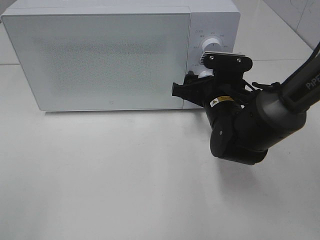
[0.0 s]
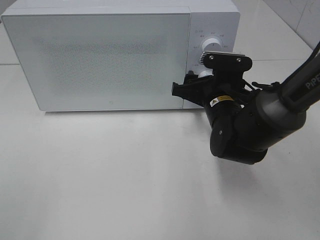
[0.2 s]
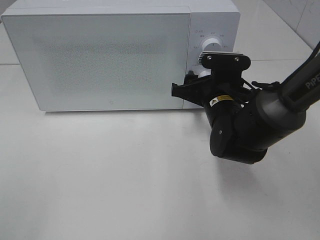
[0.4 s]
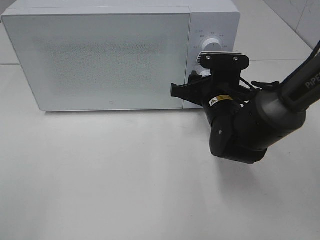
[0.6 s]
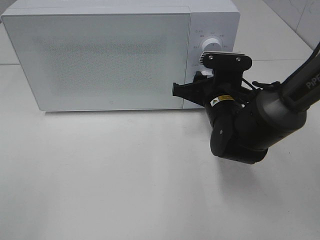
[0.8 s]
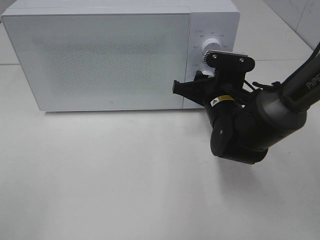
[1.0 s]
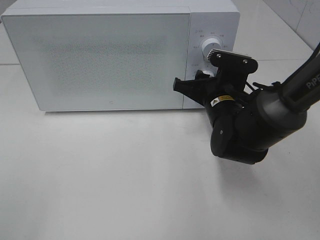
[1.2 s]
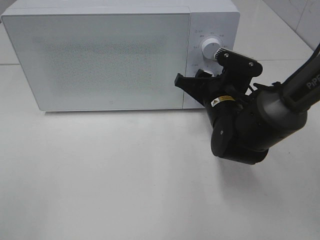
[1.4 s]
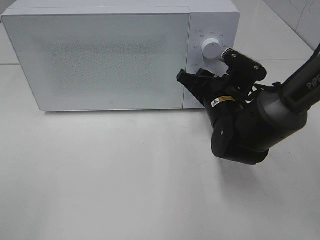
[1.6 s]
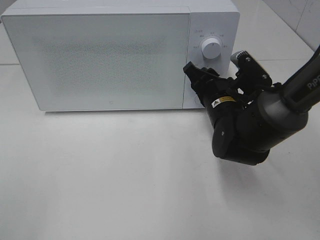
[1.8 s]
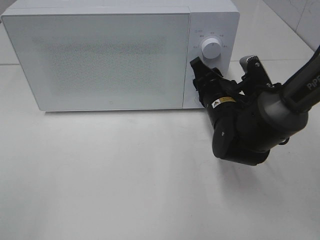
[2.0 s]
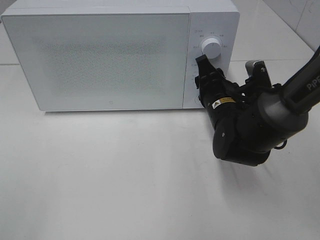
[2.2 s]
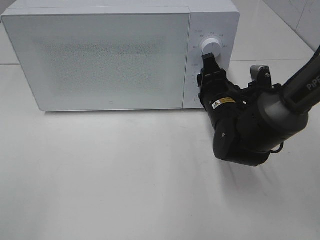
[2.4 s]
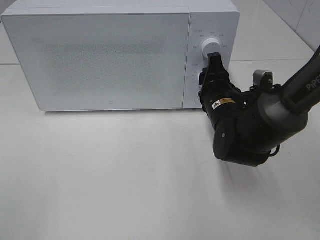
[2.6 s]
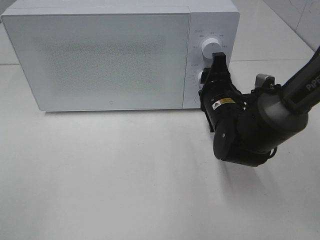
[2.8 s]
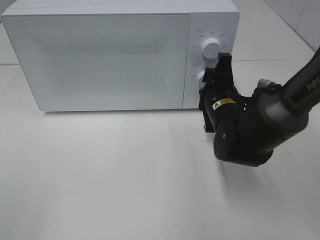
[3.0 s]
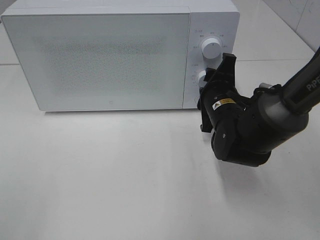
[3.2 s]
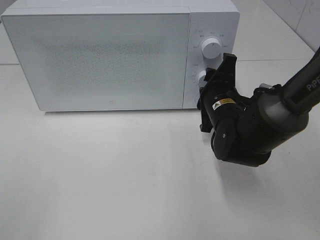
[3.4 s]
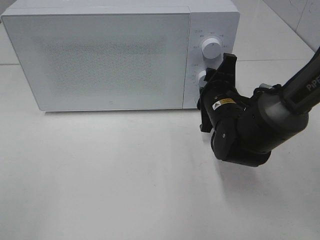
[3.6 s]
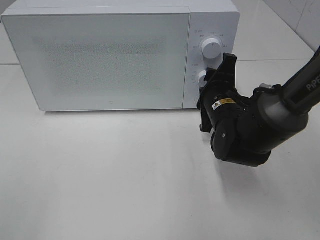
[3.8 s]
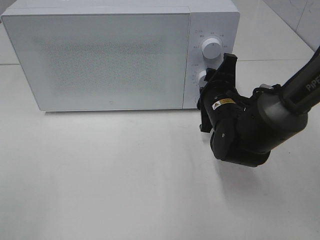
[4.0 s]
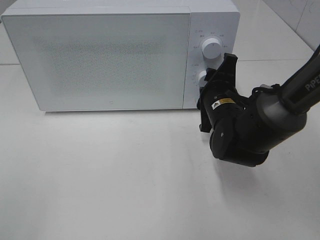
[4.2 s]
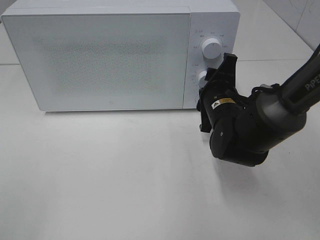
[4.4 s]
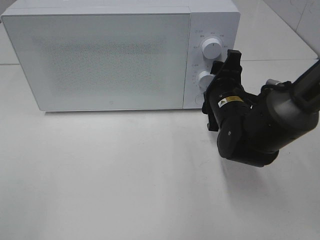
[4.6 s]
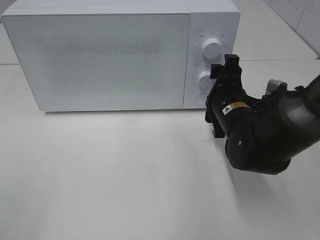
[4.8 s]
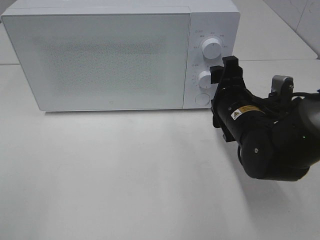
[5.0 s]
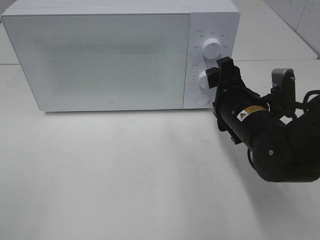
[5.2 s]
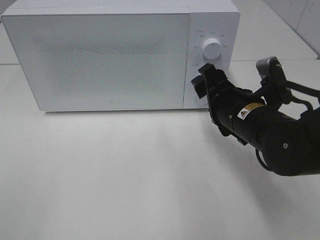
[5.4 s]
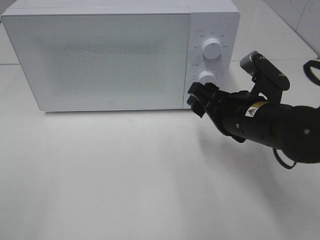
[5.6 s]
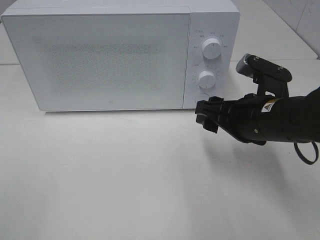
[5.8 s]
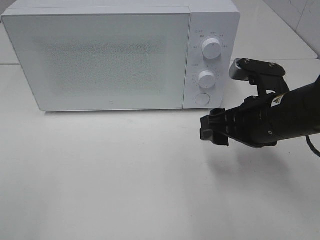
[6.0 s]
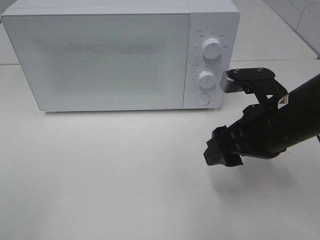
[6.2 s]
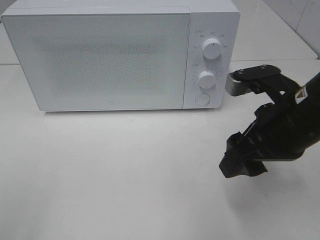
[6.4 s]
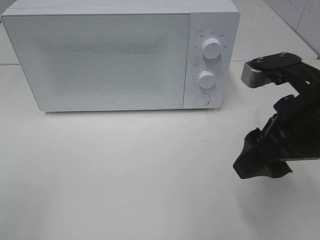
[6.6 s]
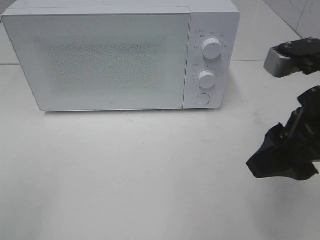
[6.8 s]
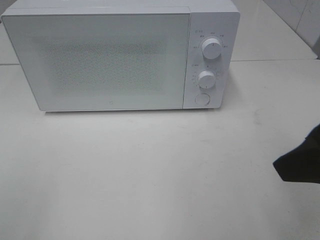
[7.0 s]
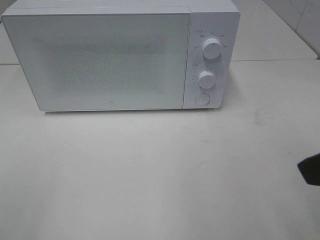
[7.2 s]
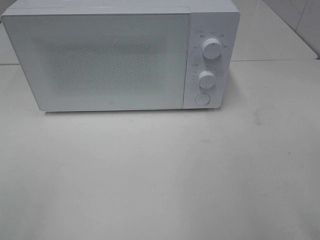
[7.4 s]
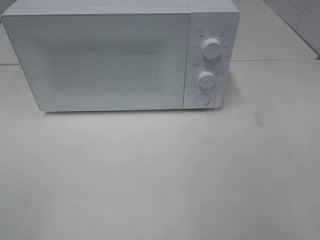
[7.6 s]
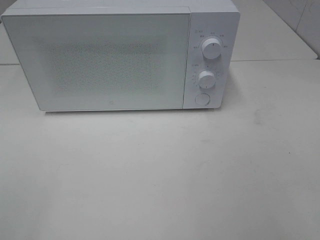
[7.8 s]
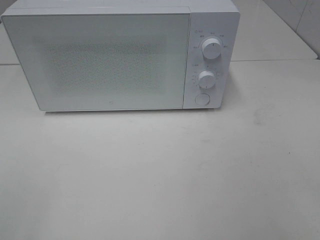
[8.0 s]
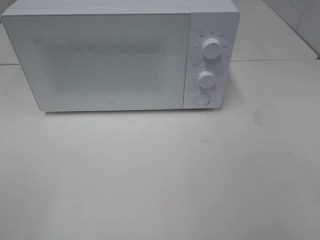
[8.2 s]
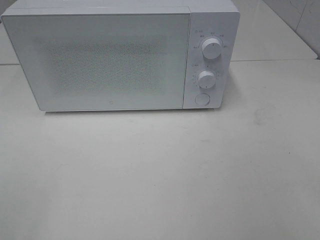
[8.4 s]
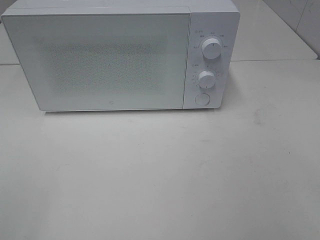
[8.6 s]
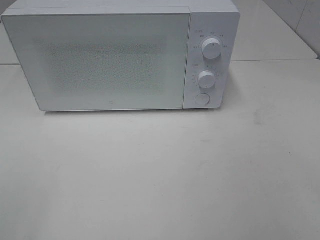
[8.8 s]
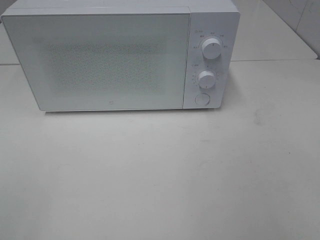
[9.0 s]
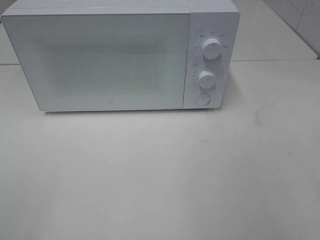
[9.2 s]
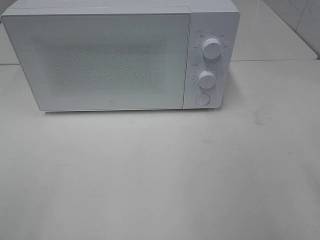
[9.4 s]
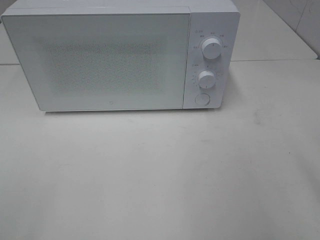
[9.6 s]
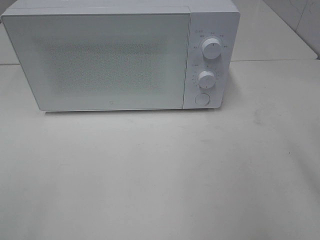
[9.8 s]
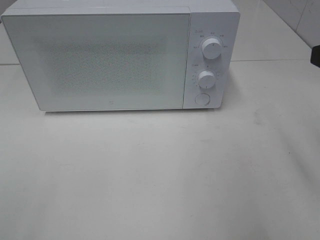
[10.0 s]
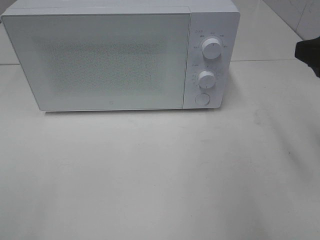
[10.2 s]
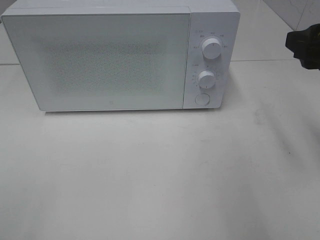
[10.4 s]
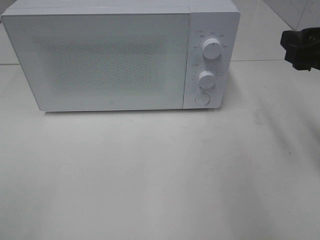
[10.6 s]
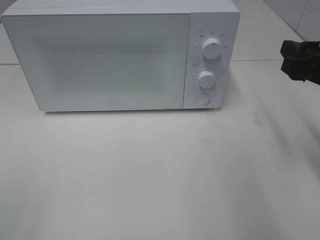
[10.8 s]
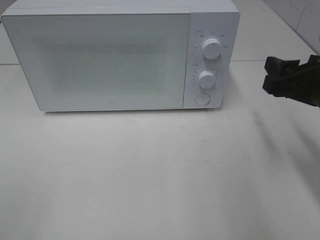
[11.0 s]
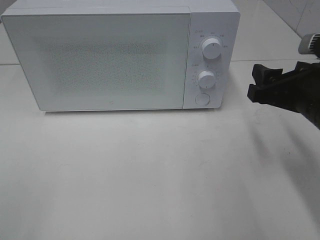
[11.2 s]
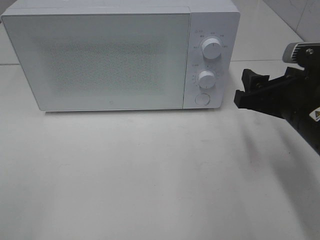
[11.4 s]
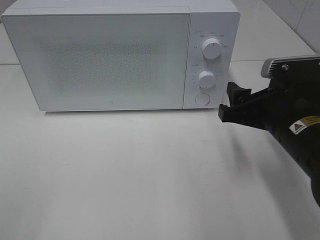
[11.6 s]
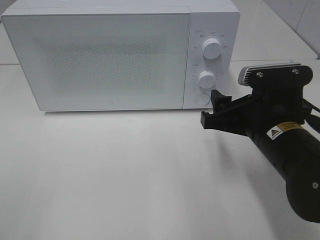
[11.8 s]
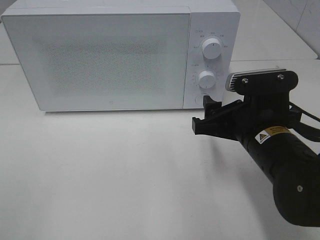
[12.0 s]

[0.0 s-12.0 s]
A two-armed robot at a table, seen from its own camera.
Task of the whole recording: Heat the burger.
Step, 0.0 to 4.8 s: Right hand: twist timer button.
3.0 to 4.4 s: The grippers stay close to where they were, moving slightly.
4.4 to 6.0 s: The right gripper is displaced backward and upward by roughly 10 cm.
6.0 to 7.6 s: The right gripper is displaced backward, upward and to the right by about 25 cm.
9.0 to 10.4 s: The right gripper shifts about 20 cm forward.
10.4 to 12.0 s: The right gripper moves downward and to the left, roughly 15 cm.

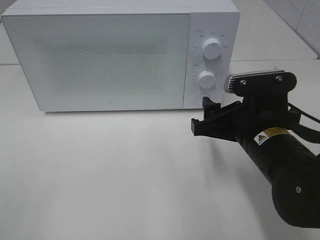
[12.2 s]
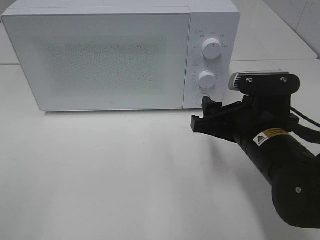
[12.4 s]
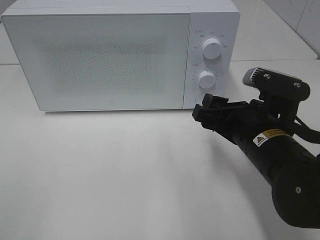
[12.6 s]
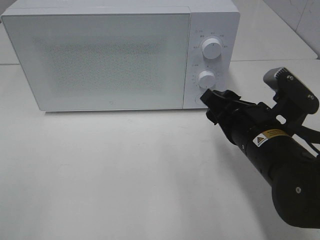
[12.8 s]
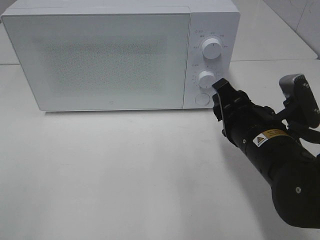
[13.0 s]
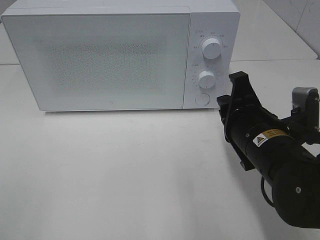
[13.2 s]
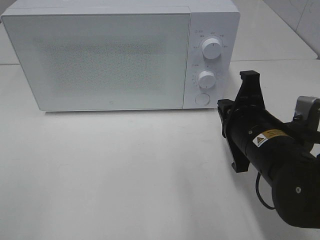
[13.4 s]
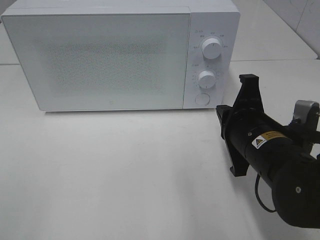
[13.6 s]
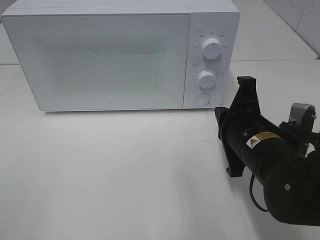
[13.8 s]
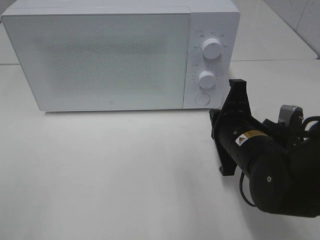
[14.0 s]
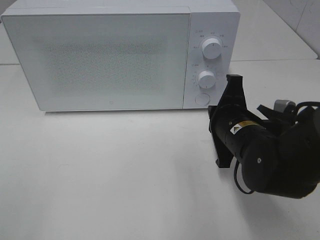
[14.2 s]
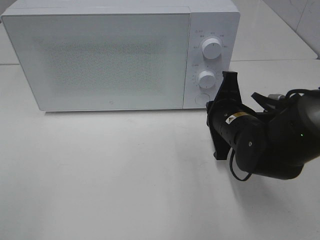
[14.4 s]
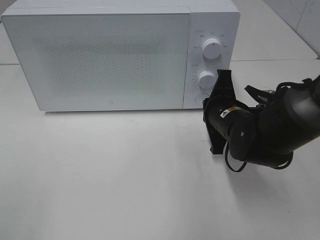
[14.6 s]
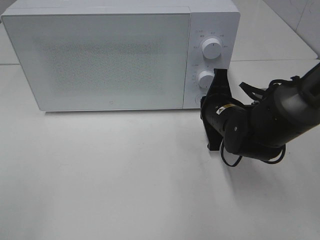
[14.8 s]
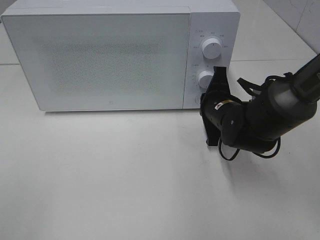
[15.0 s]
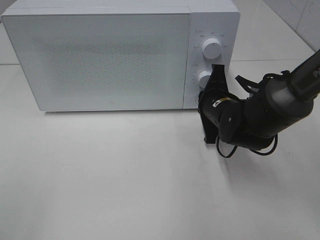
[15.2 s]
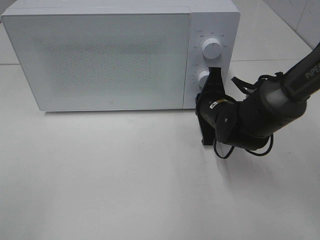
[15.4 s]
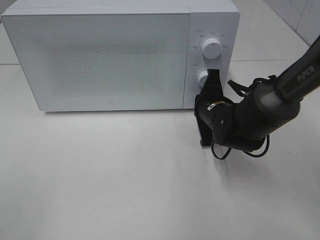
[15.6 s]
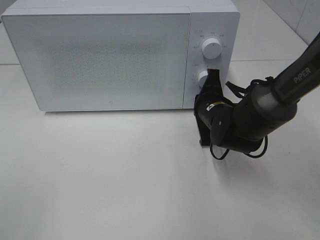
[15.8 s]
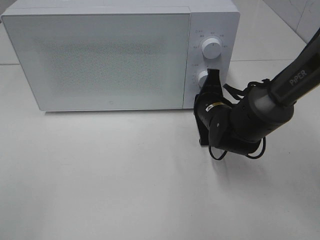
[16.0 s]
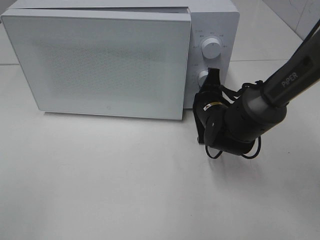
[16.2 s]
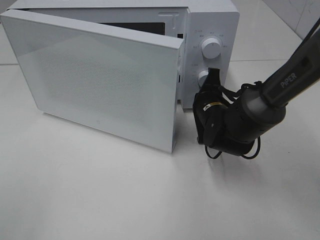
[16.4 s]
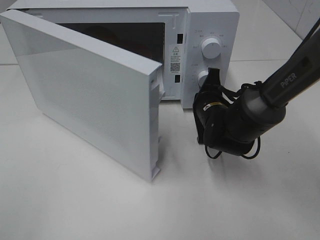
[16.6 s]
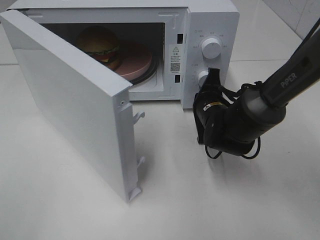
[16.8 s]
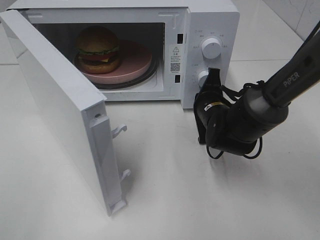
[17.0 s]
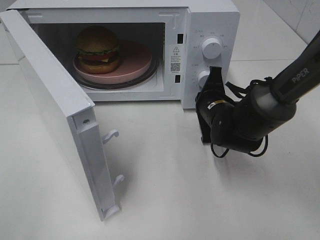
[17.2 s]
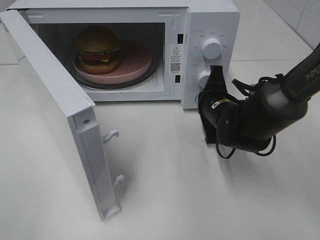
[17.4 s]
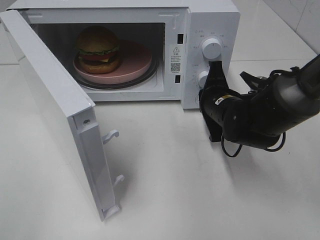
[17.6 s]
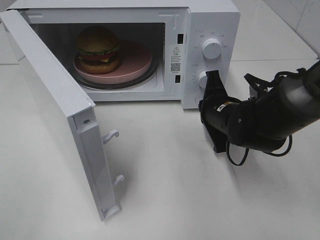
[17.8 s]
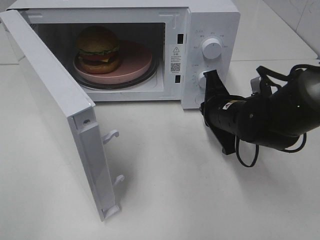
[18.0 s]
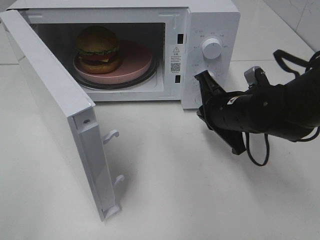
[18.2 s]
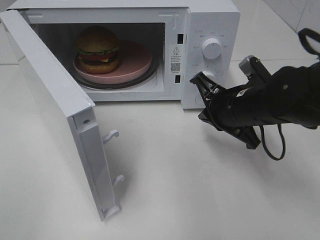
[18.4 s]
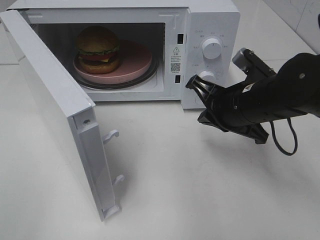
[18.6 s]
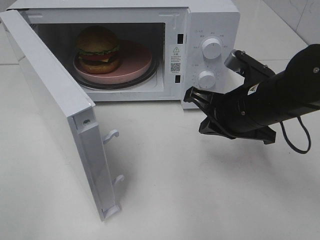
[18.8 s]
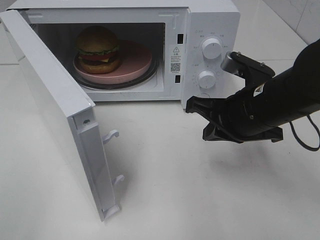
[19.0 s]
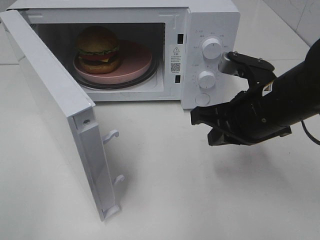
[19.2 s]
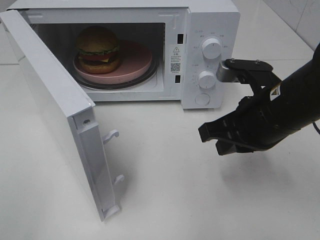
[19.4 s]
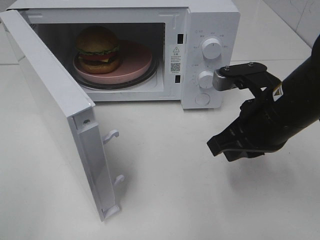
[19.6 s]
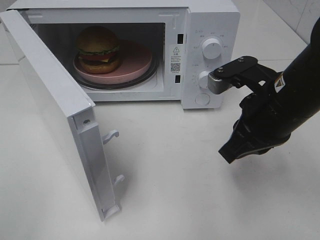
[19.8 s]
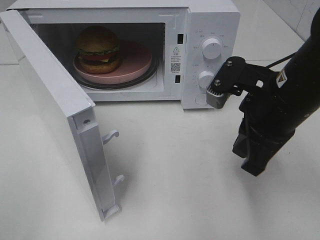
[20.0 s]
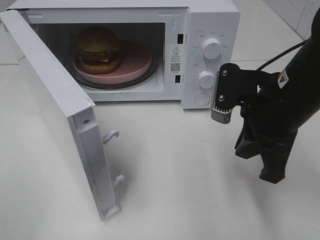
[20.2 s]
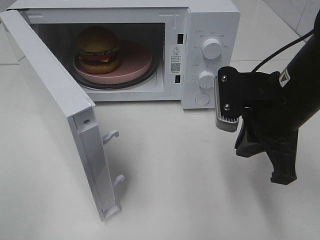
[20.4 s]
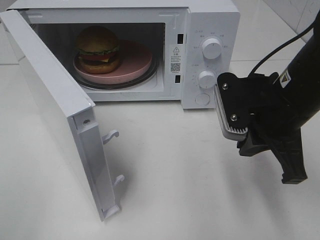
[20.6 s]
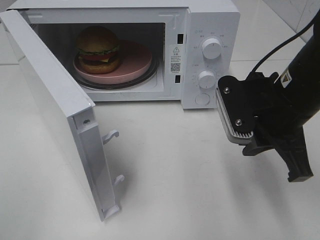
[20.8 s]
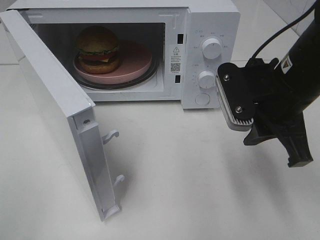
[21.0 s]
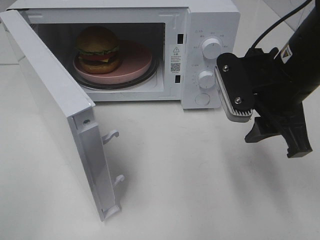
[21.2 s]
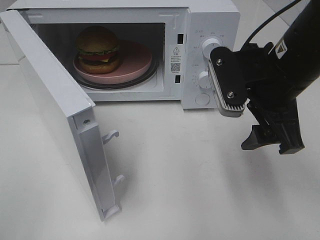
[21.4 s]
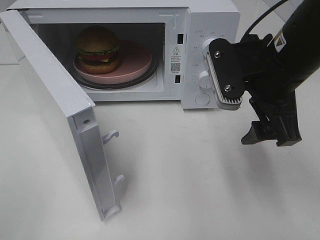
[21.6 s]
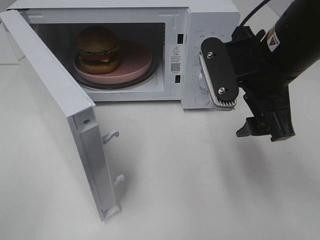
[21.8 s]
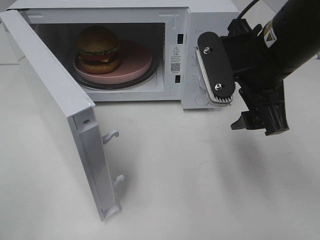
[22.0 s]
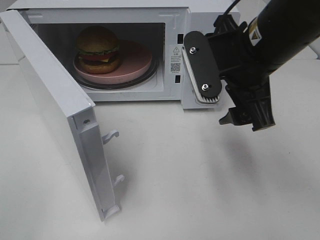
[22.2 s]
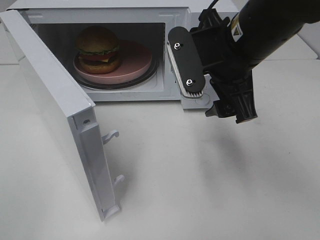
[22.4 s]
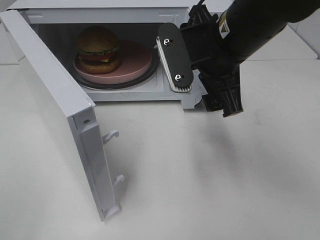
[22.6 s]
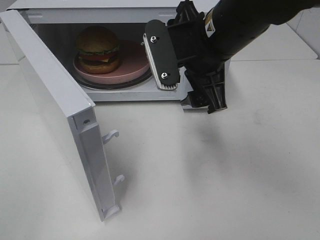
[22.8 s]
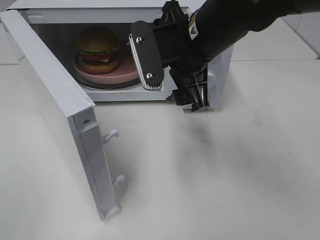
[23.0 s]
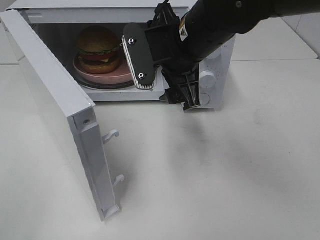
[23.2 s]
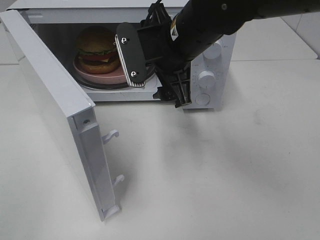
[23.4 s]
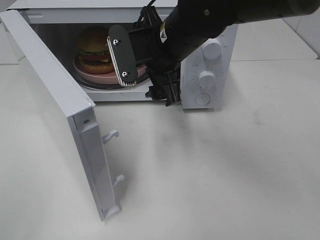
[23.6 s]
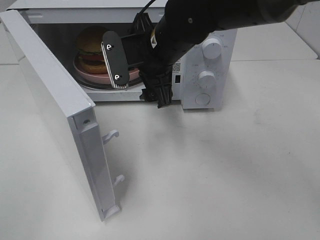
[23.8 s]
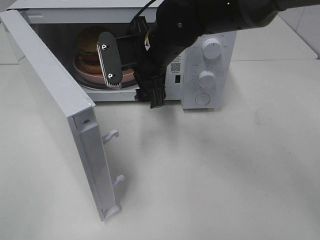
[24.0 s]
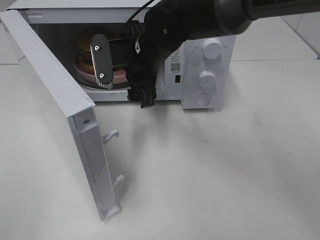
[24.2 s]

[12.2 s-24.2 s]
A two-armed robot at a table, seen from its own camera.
Task of the whole recording: Heat the burger.
Step, 12.2 to 18.0 s: Right hand: press the switch.
12.2 to 13.8 s: The right gripper closes its fingers.
13.8 to 15.2 s: The right gripper shifts approximately 10 cm forward.
16.6 to 18.2 s: The right gripper goes roughly 10 cm backward and upward.
18.2 to 19.8 s: The right gripper is displaced upward and backward by approximately 10 cm.
19.8 to 21.2 s: The right gripper opens up.
21.2 to 22.6 s: The right gripper heads to the left, covering roughly 5 cm, and opens up.
22.6 to 24.2 s: The right gripper moves to the left, forward and downward, approximately 15 cm.
